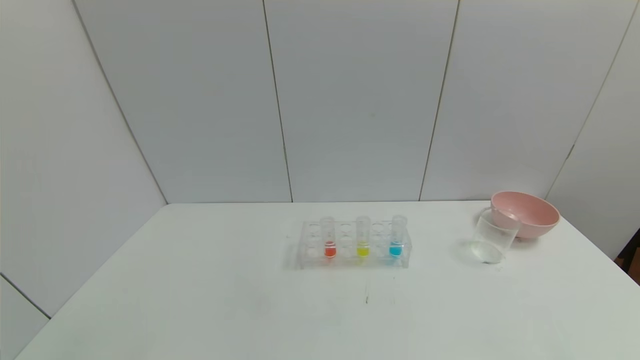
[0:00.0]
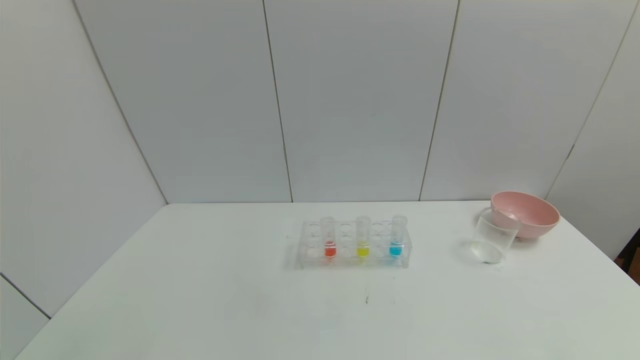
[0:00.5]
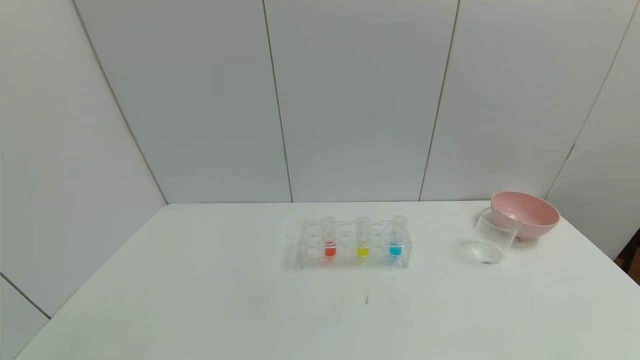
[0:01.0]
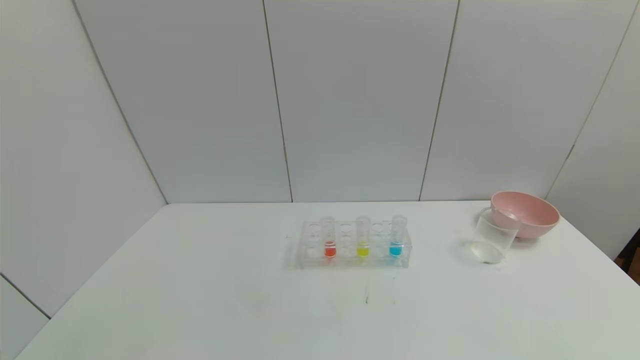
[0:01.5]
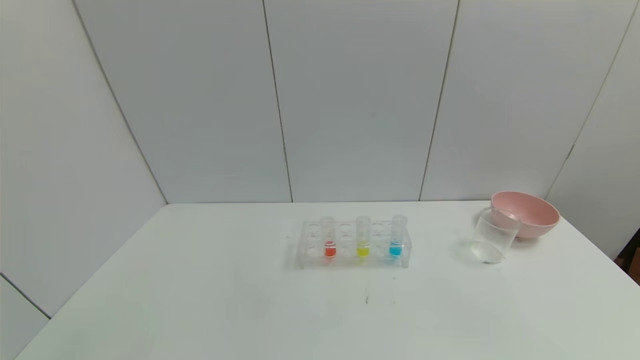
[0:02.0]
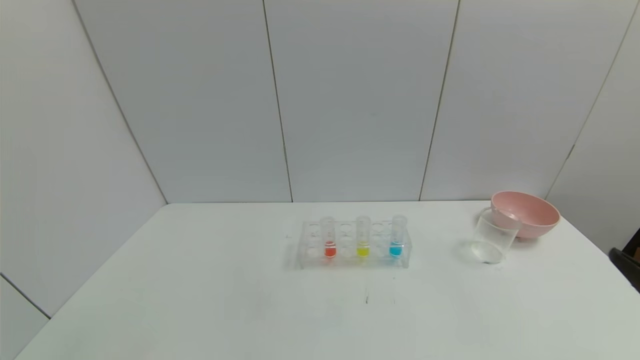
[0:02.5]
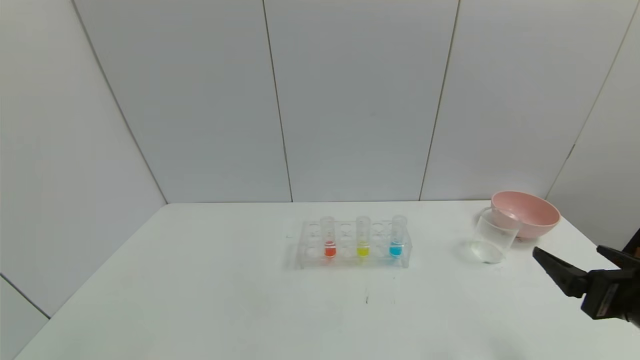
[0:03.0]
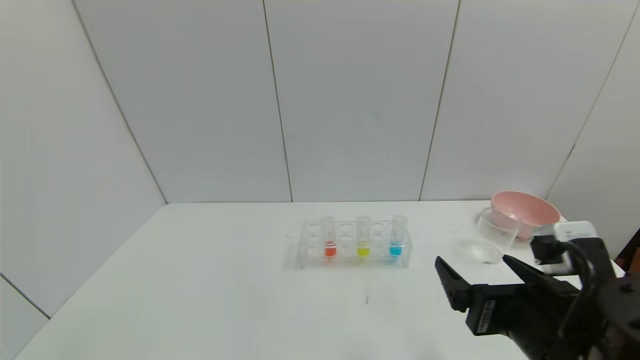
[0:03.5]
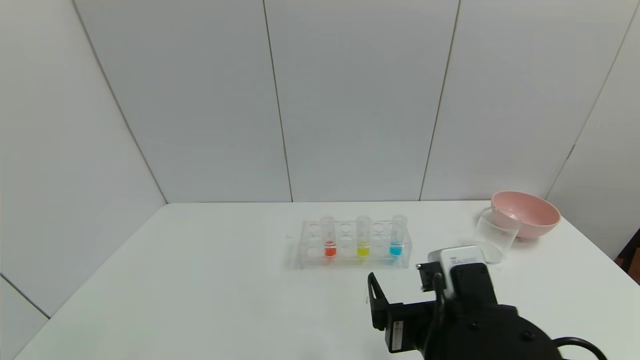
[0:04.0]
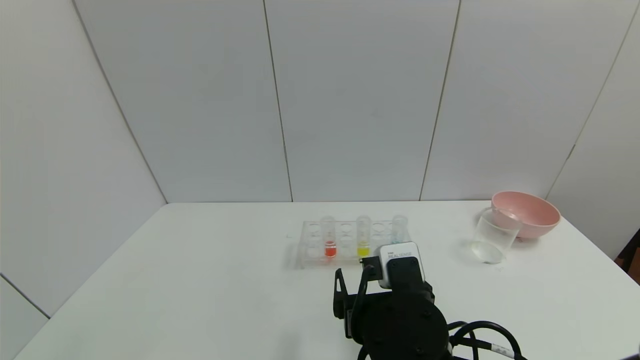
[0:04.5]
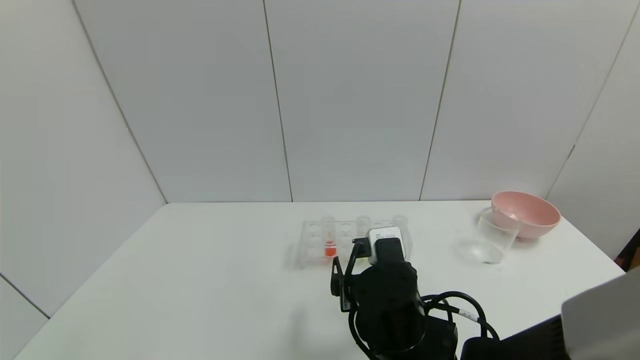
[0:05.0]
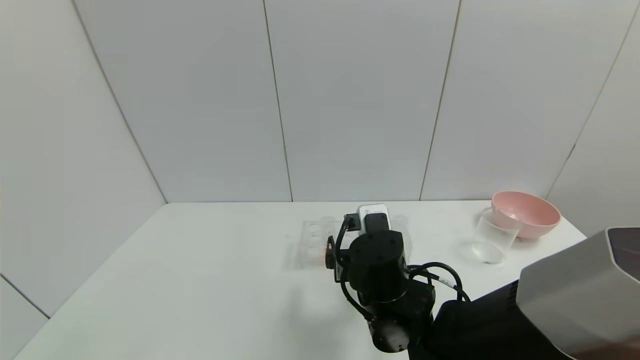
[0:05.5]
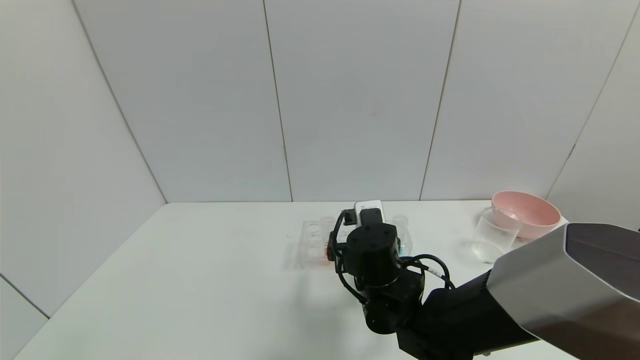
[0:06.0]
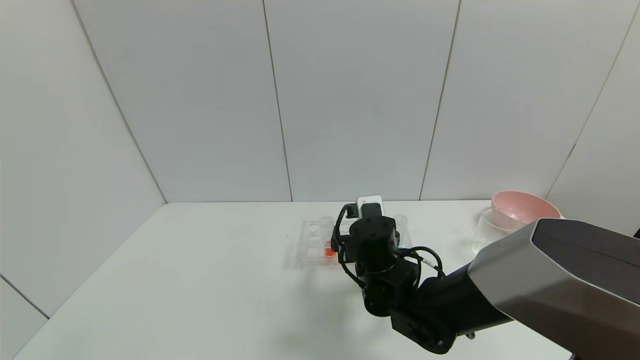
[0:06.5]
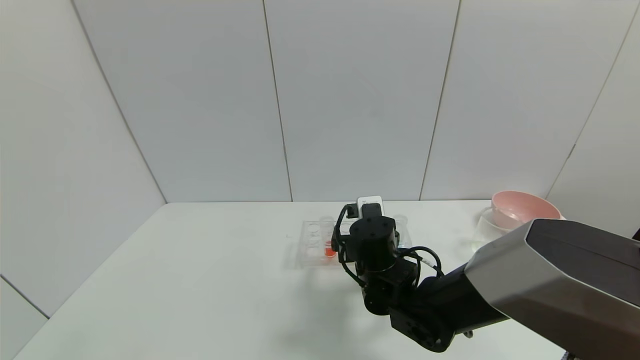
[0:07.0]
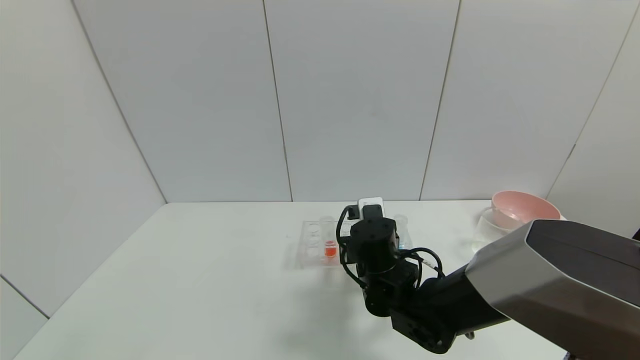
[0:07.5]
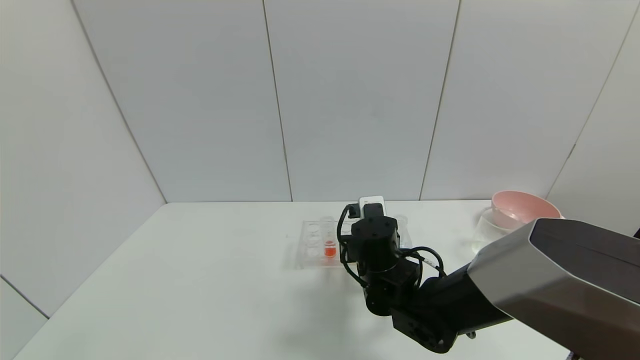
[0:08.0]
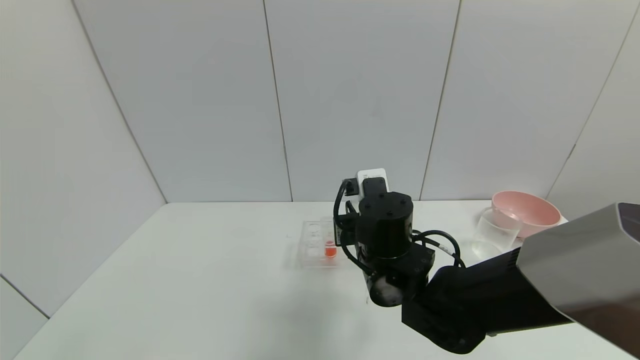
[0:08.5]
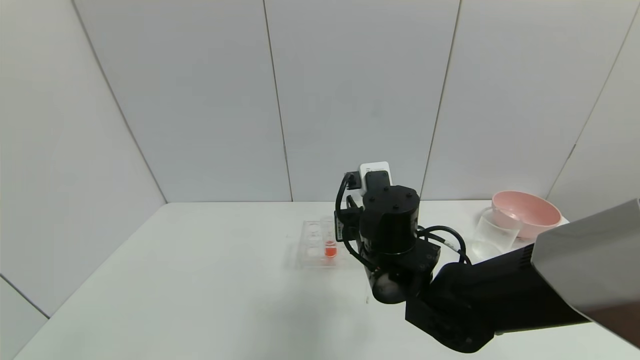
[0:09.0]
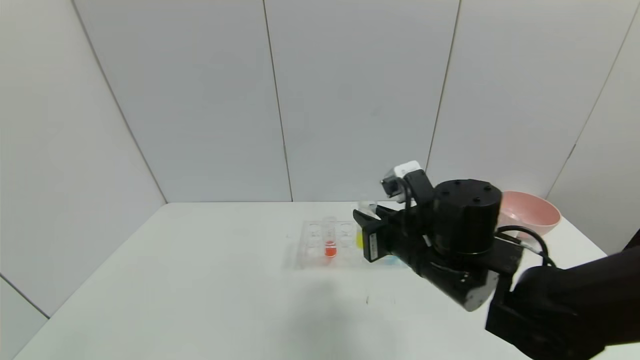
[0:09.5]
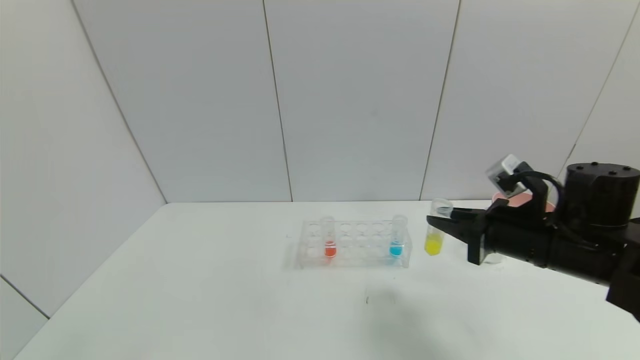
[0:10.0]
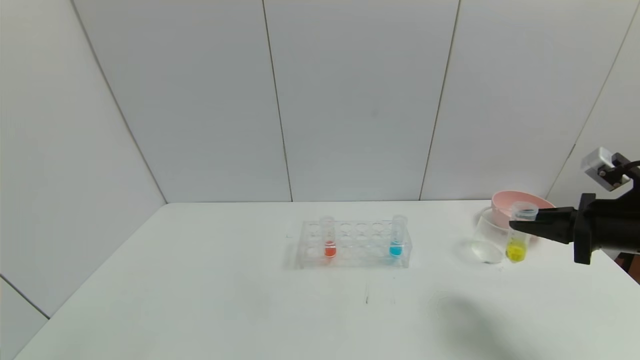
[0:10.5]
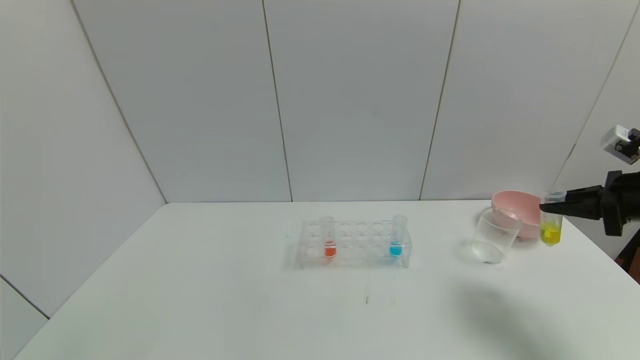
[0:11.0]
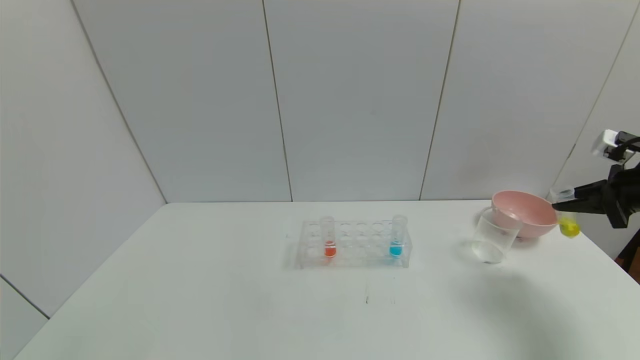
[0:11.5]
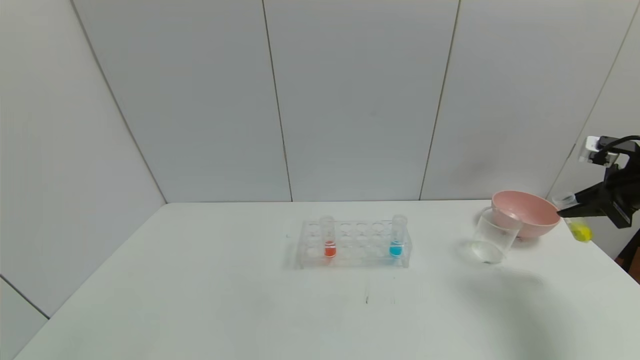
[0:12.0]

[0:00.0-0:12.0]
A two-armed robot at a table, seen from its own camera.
Task of the whole recording: pick up the test tube with yellow pigment and the test tube with blue pigment by grippers and pour them into the beaker.
Step, 0:00.0 to 0:07.5: Grasp the yellow reagent with the right gripper.
0:02.0 to 0:04.0: The right gripper moves to the left and forward, roughly 30 cm.
0:04.0 to 0:06.0: The right gripper shifts some 15 cm forward.
0:06.0 to 0:08.0: The right gripper closes up.
0:08.0 to 0:10.0: The right gripper goes some 25 cm to the right and upward.
0:10.0 to 0:12.0: The right gripper heads to the right, covering approximately 20 cm.

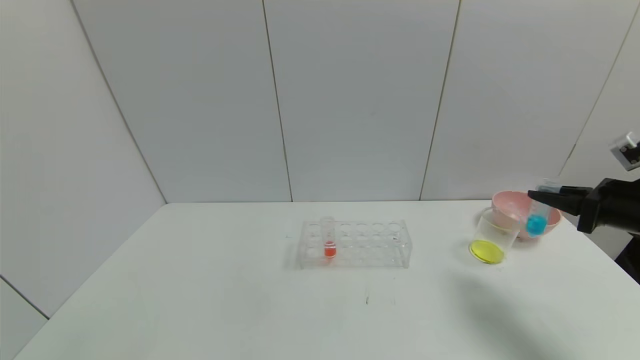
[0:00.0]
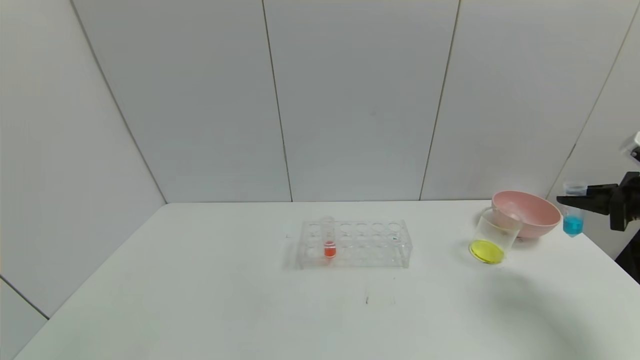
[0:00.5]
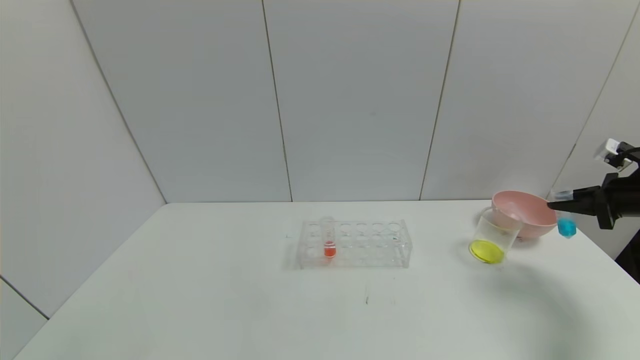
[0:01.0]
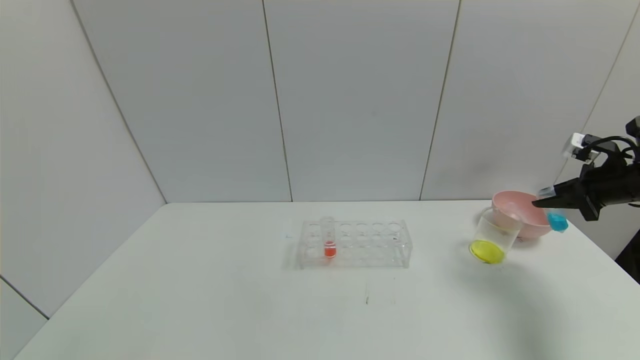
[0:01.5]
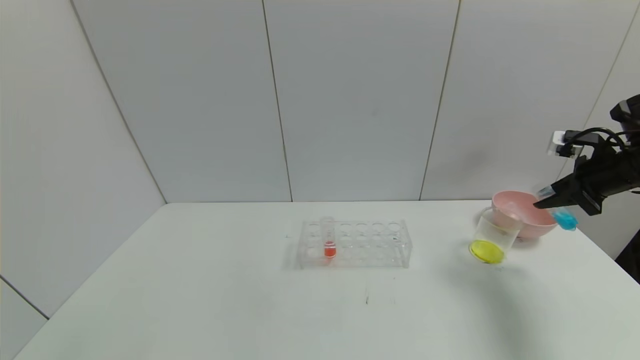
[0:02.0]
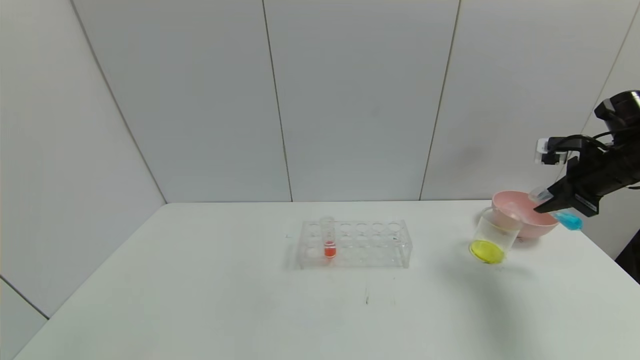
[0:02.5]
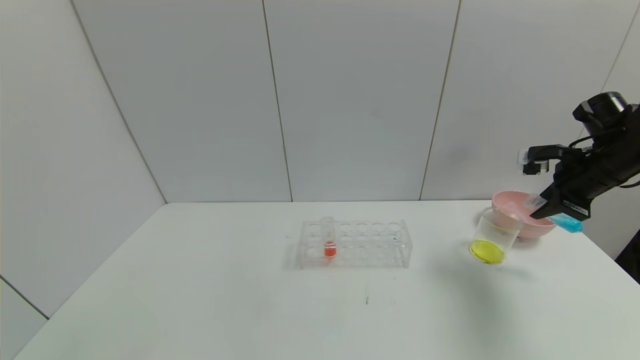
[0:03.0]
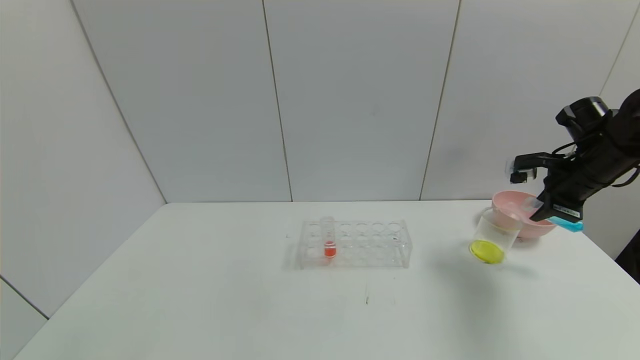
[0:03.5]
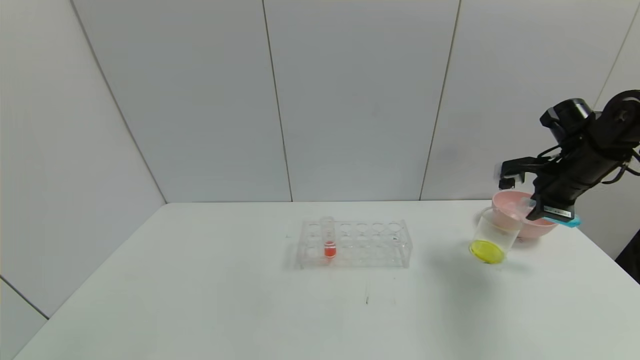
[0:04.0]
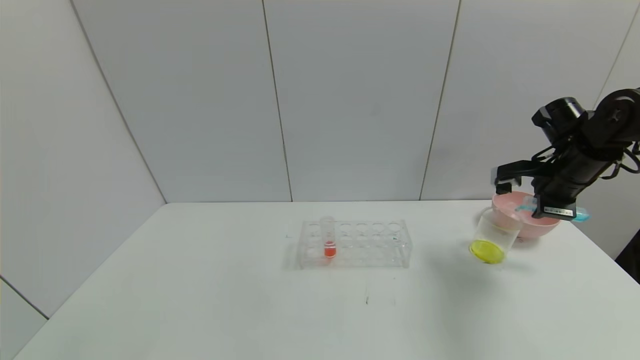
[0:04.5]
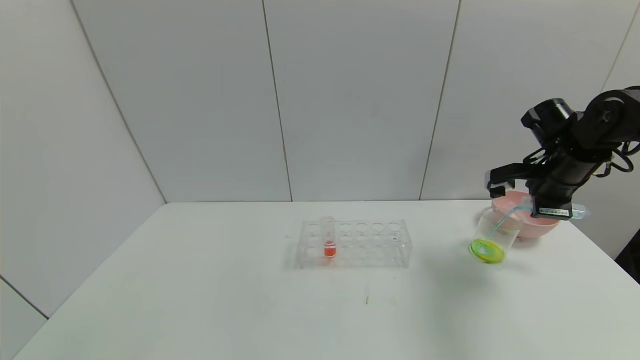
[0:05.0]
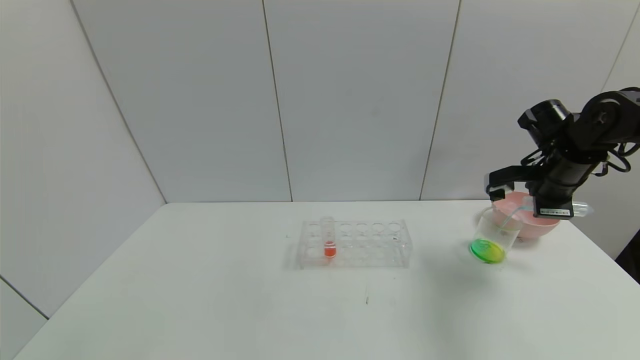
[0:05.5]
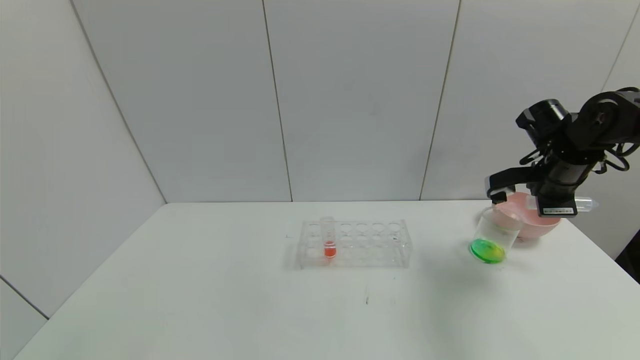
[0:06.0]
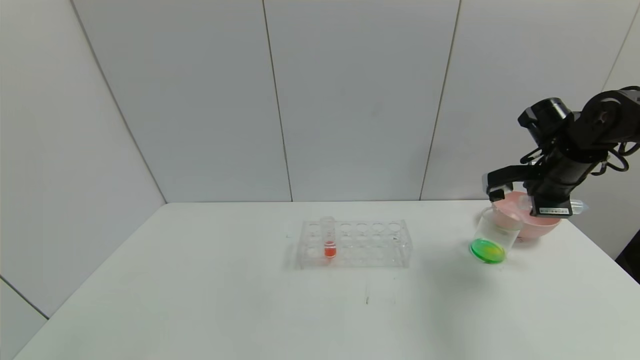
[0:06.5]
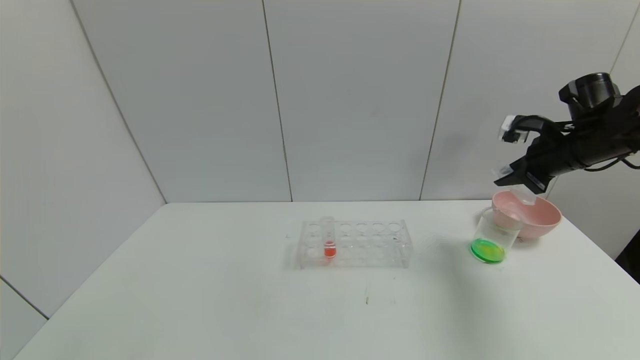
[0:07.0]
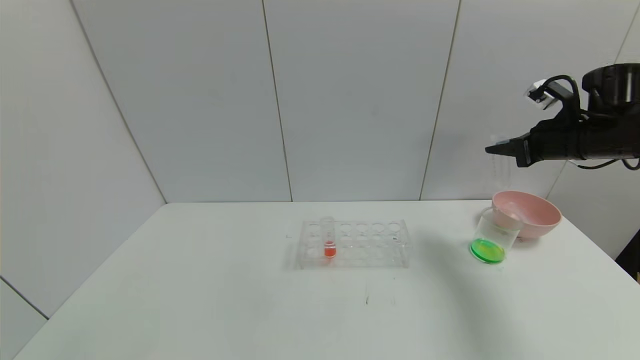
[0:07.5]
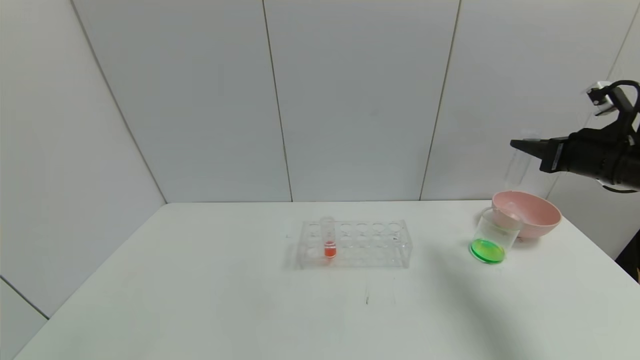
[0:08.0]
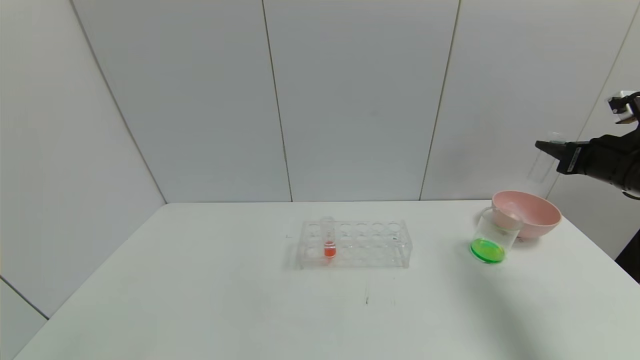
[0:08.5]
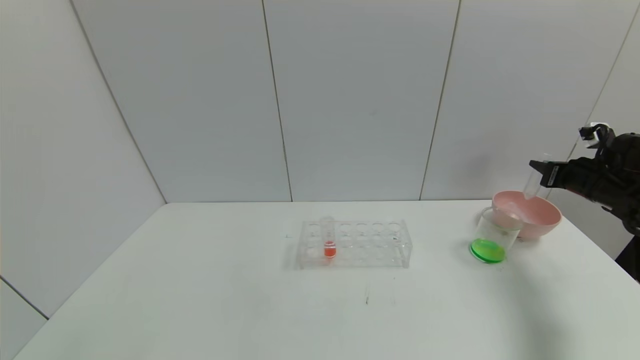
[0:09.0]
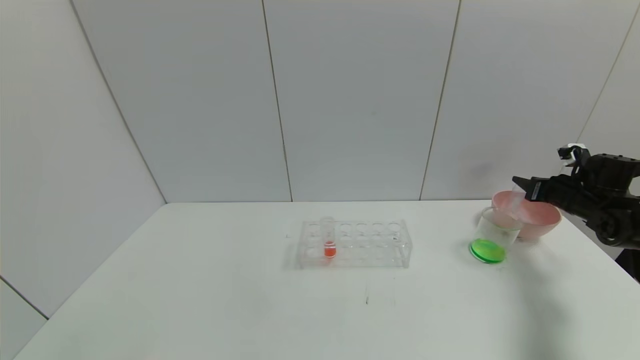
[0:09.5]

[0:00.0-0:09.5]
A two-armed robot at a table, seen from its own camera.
Task of the whole recording: pick up the test tube with yellow pigment and the test tube with blue pigment by grippers and pour them into the beaker.
Step, 0:00.0 to 0:06.0: Pour the blue reagent into the graduated cylinder with the right gripper.
0:00.0 to 0:02.0: The right gripper shifts approximately 10 cm forward.
0:02.0 to 0:04.0: The right gripper moves to the left, about 5 cm.
0:04.0 to 0:05.5: The grippers make only small movements.
0:05.5 to 0:07.5: The right gripper changes place by about 5 cm.
0:07.5 to 0:09.5: The right gripper is displaced downward and to the right by approximately 15 cm.
